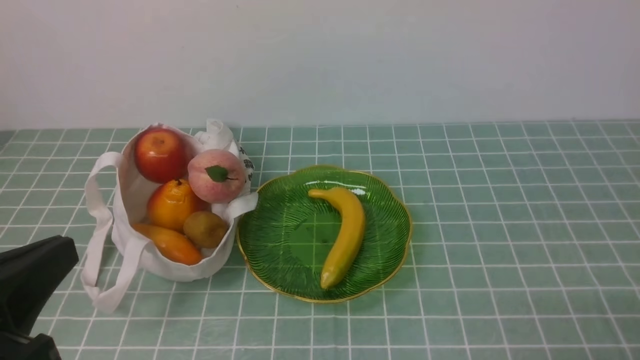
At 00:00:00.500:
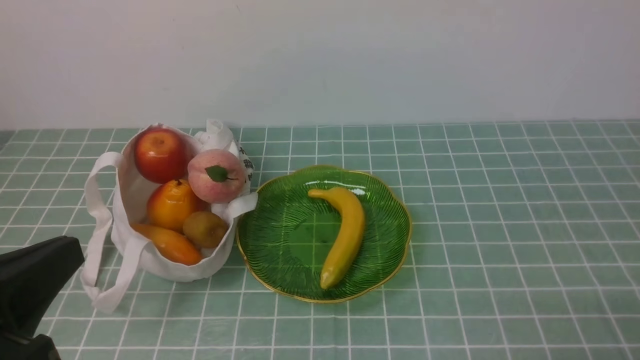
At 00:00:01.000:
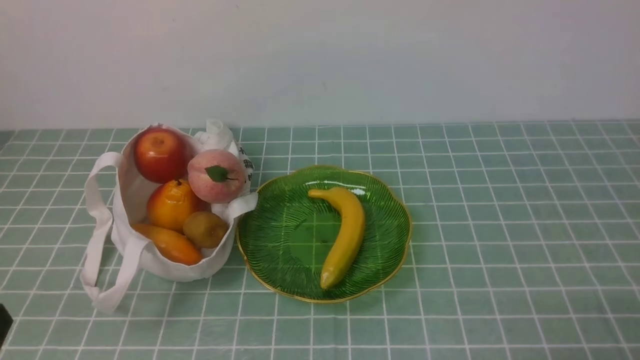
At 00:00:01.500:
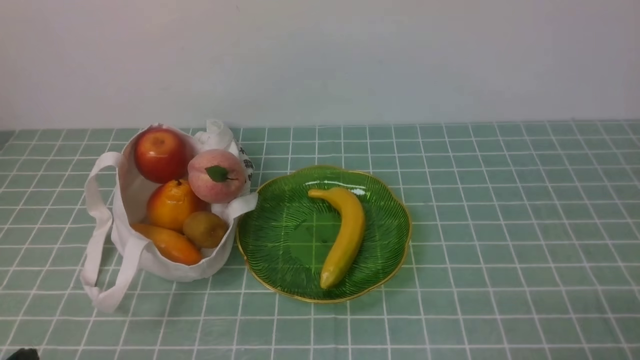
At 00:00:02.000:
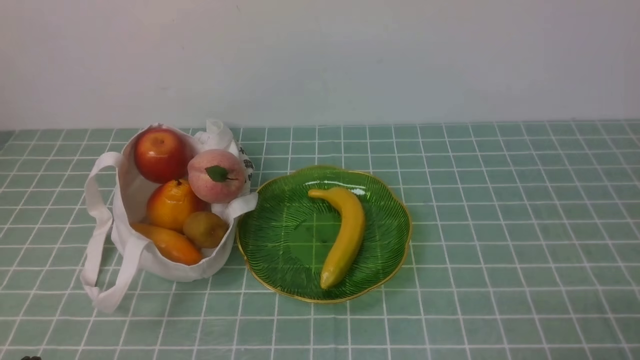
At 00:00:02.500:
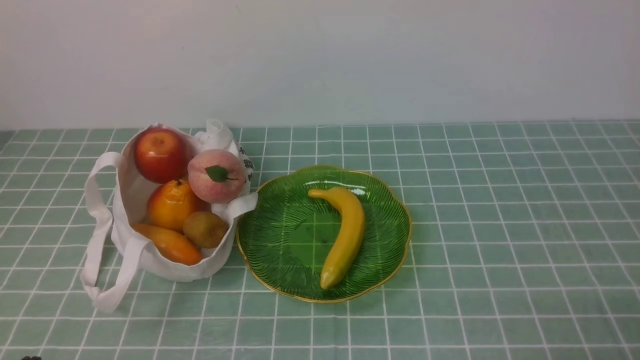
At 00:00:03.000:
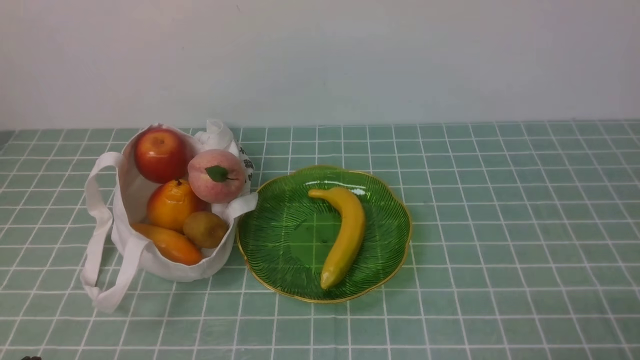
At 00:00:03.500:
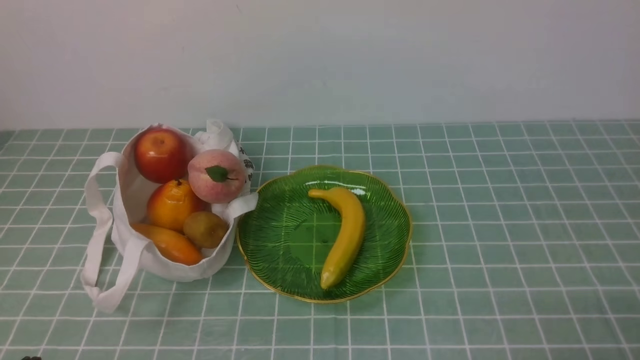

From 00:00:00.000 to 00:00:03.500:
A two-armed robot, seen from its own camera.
From 00:00:00.000 to 00:00:02.000: The left gripper heads downward, covering roughly 15 cm.
From 00:00:02.000 to 00:00:03.500: Both grippers stay put.
